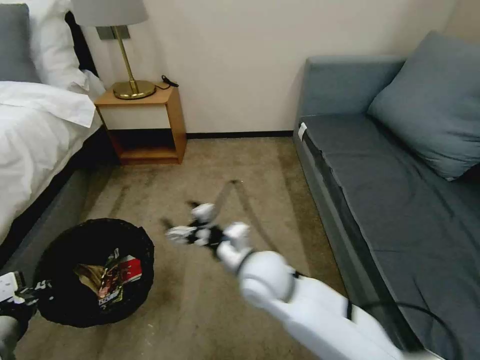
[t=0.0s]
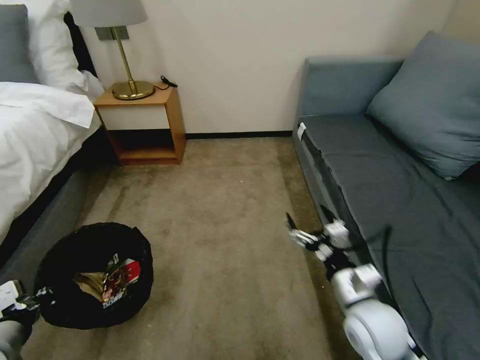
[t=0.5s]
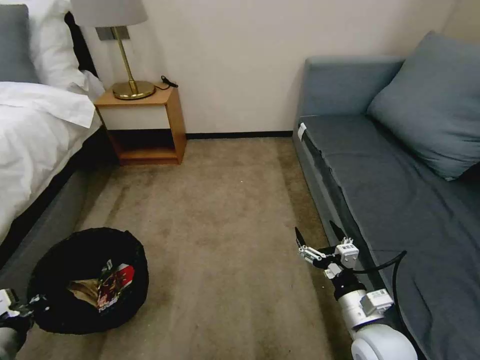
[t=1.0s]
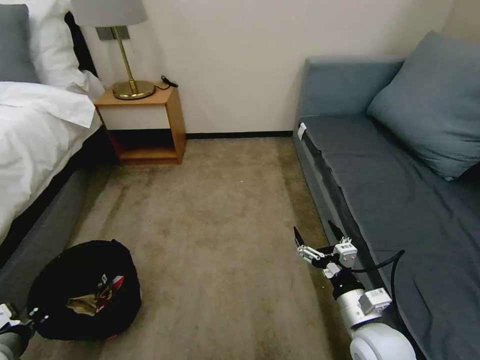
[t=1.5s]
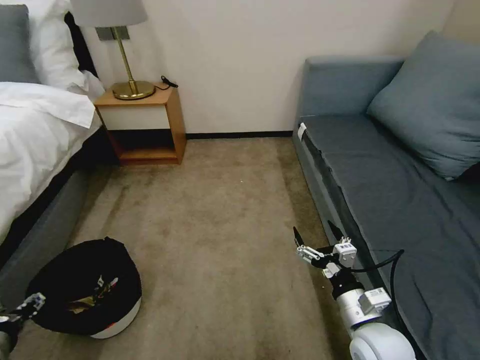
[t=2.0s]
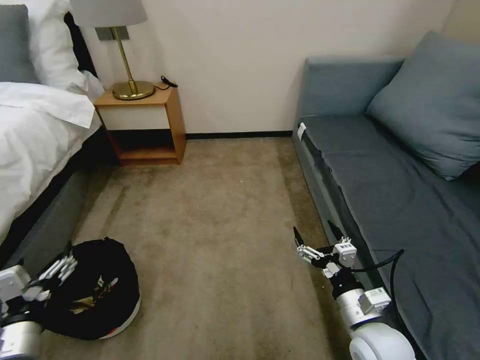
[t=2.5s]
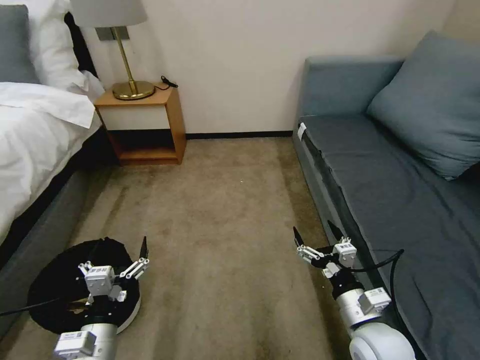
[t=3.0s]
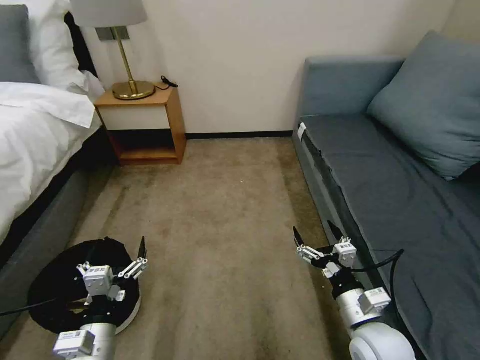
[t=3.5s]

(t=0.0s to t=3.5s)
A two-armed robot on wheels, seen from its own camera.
Task of the whole recording: Pick up the trash bin, then pick up the garbage on the floor and place it into the trash bin.
t=0.0s - t=2.0s: The right gripper heads to the right and backward, covering about 25 cm. Meanwhile the left gripper goes approximately 5 cm downward, and opens its fingers.
t=2.0s - t=3.5s: The left gripper goes about 20 cm to the right, and opens its fingers.

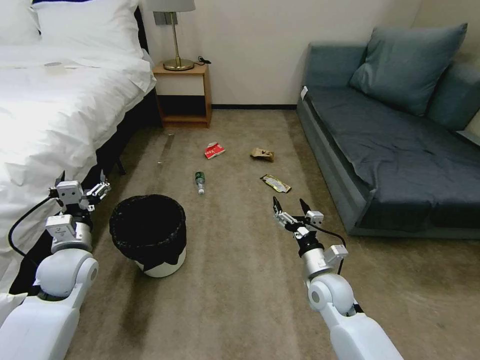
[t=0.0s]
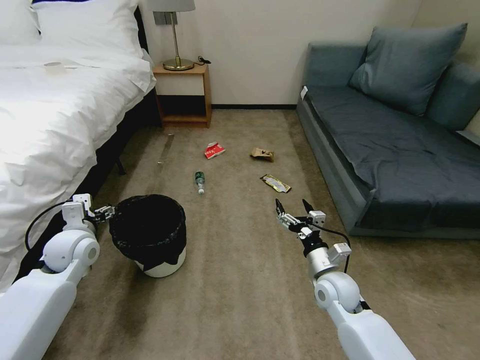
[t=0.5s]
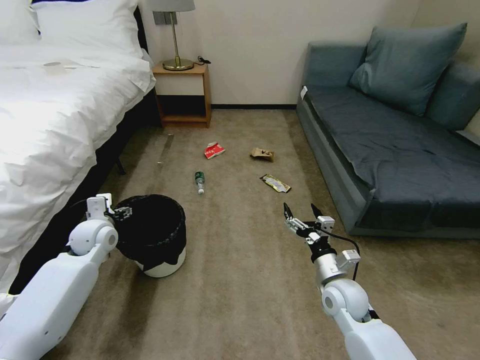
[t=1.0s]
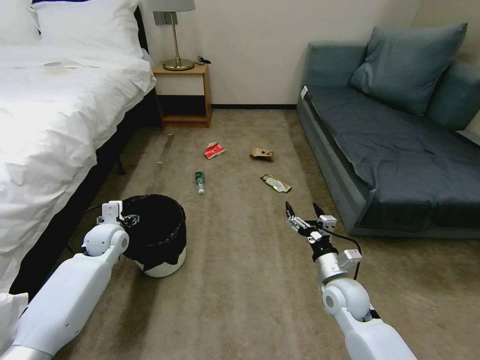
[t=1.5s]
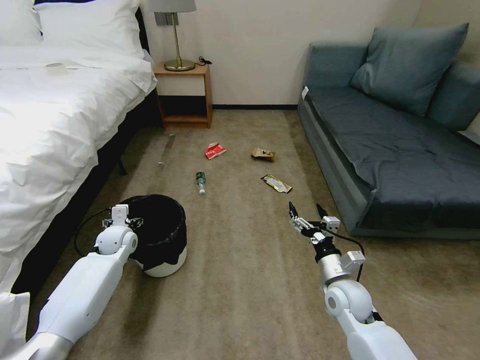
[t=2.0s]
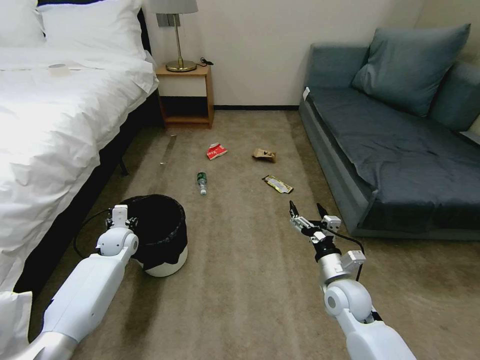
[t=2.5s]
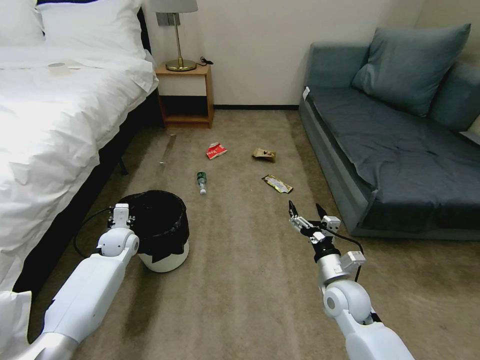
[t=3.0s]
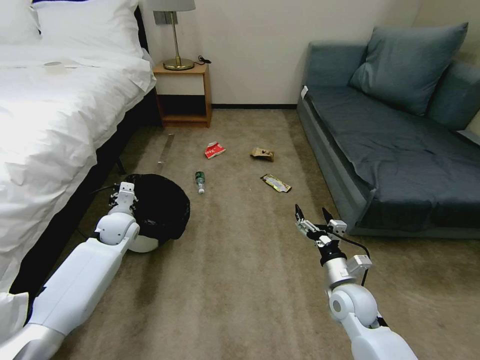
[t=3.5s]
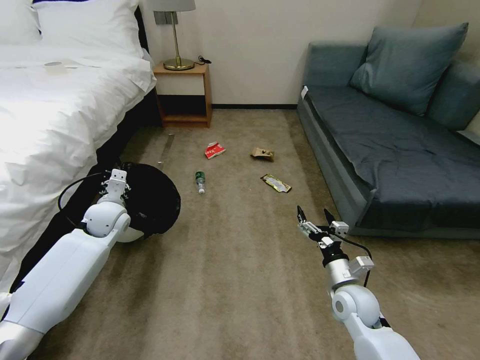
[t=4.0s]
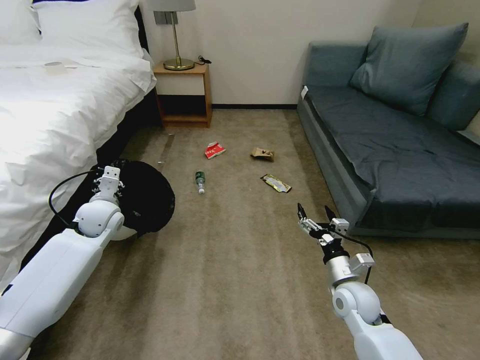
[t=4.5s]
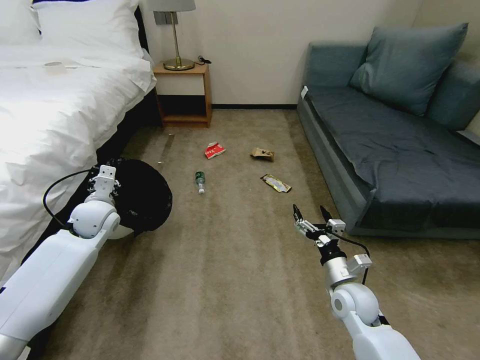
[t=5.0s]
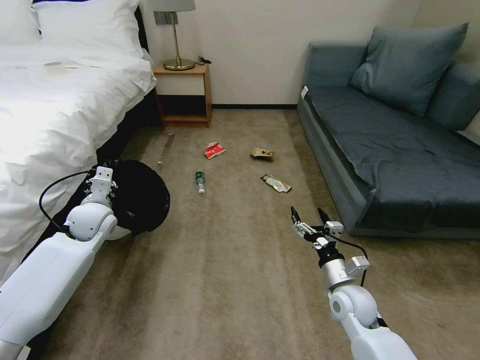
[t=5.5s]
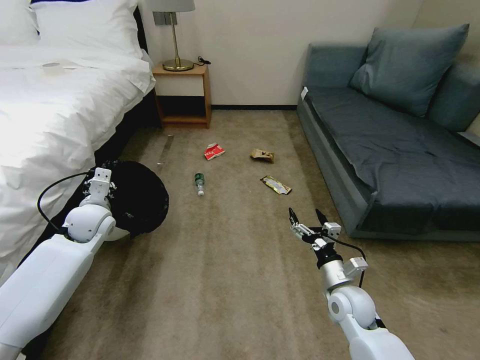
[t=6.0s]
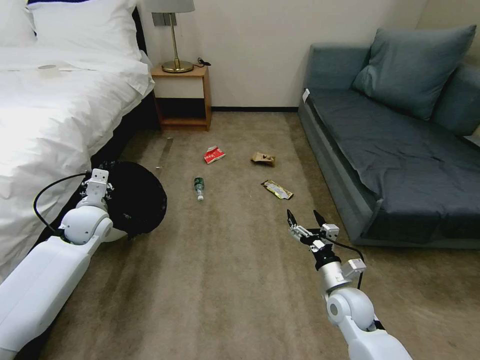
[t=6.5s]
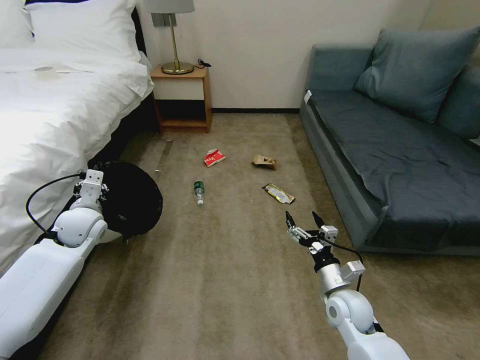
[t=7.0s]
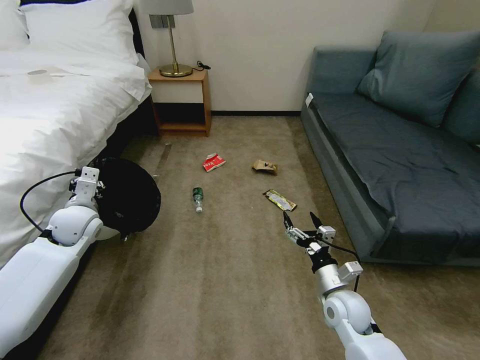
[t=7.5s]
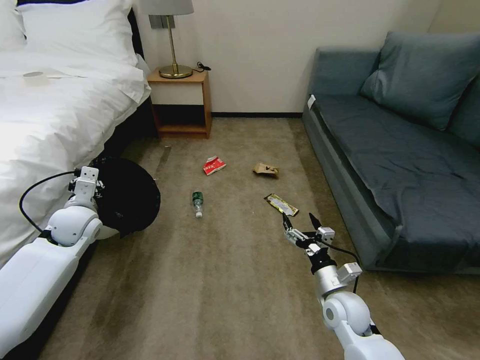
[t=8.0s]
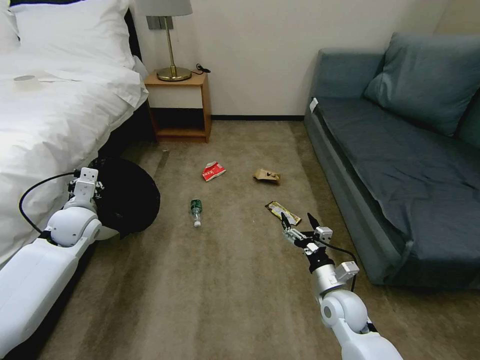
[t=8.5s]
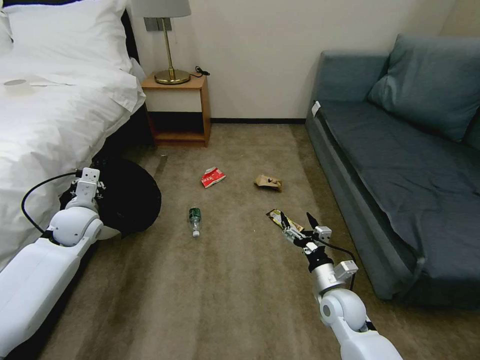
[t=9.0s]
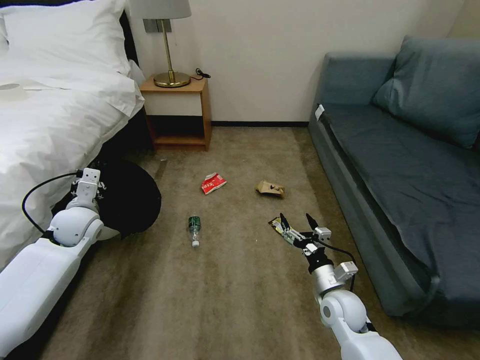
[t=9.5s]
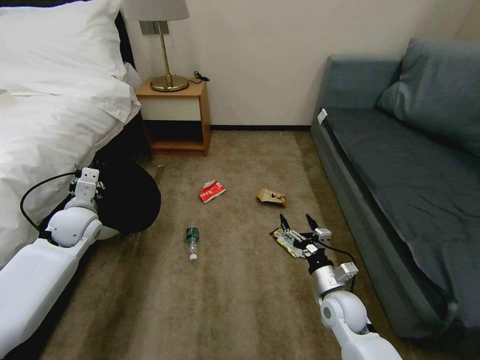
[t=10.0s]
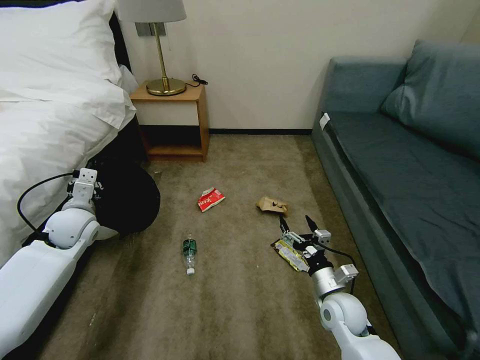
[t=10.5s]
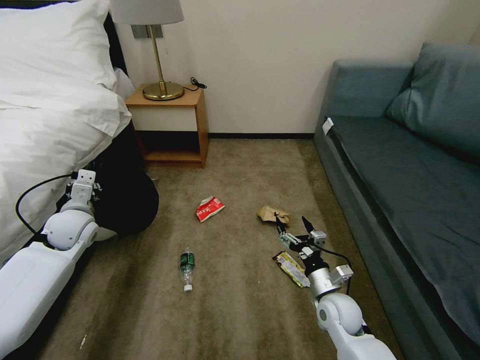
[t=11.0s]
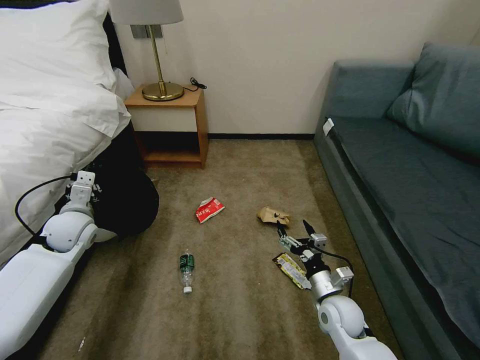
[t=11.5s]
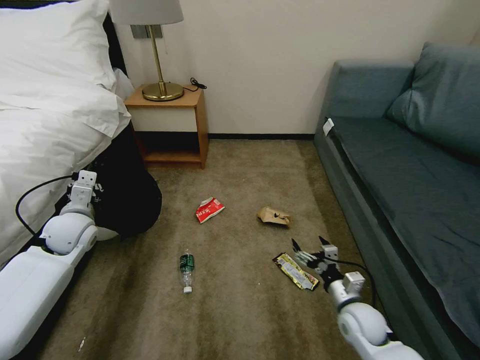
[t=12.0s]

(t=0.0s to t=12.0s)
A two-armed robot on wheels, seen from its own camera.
Task of the whole recording: Pick up the trash bin, then pick up the garbage on the floor and place it into the trash bin.
t=2.0s - t=4.0s: The left gripper shifts roughly 10 cm upward, and closes its fingers.
t=4.0s - t=6.0s: The grippers make only small movements.
t=10.0s - t=12.0s: The grippers stay close to where they were, moving slightly.

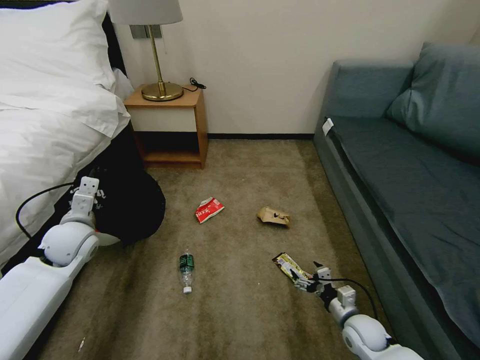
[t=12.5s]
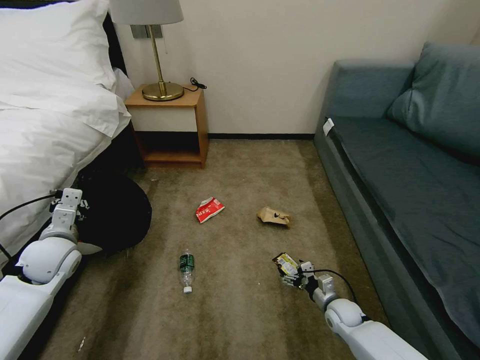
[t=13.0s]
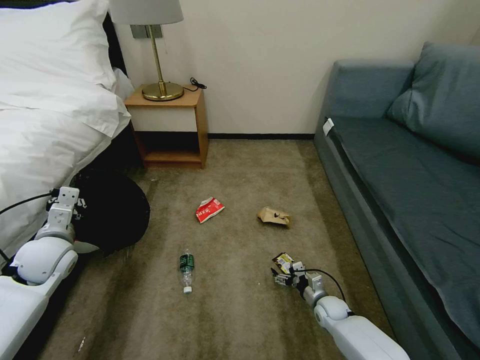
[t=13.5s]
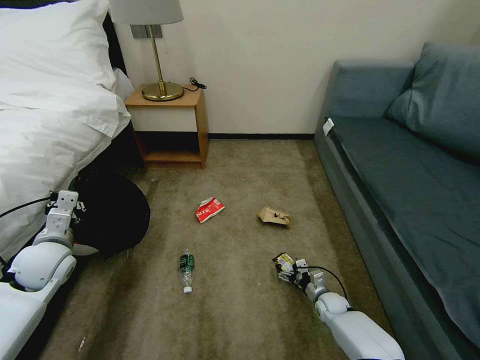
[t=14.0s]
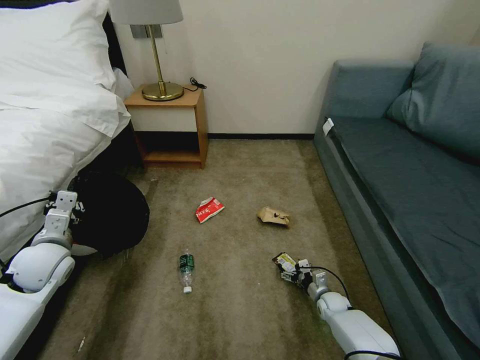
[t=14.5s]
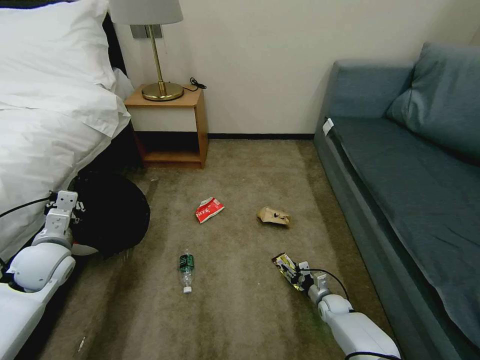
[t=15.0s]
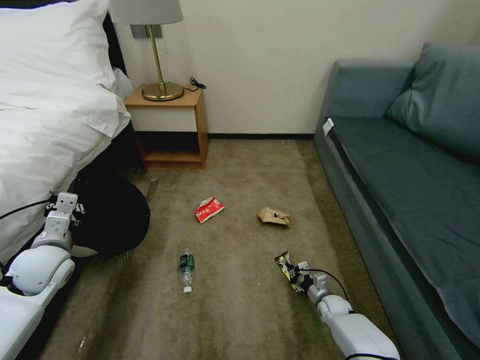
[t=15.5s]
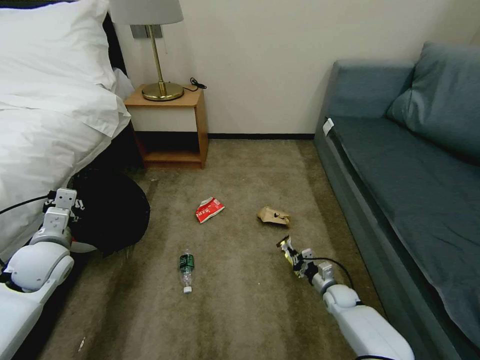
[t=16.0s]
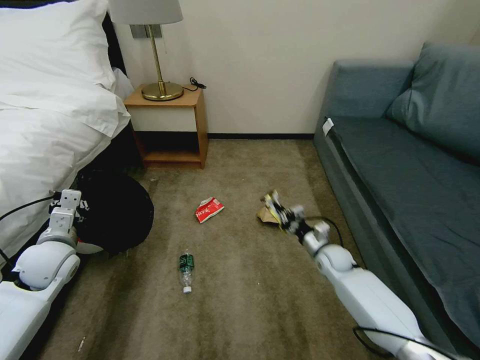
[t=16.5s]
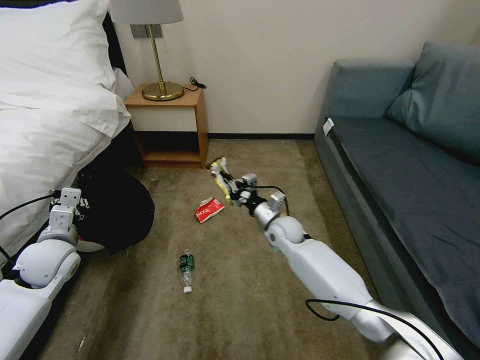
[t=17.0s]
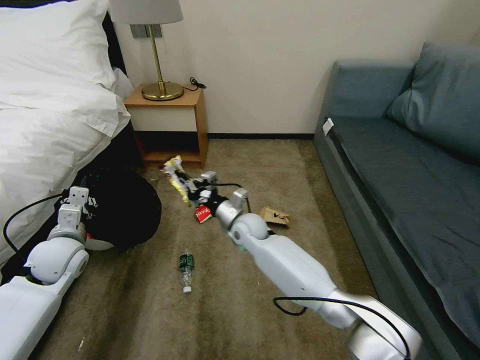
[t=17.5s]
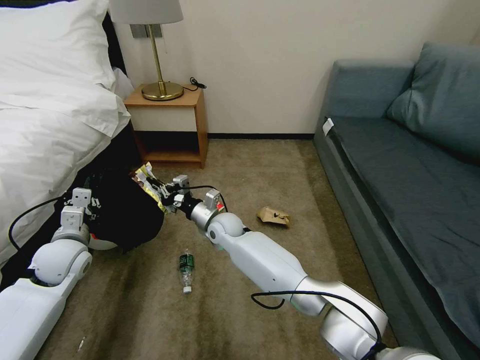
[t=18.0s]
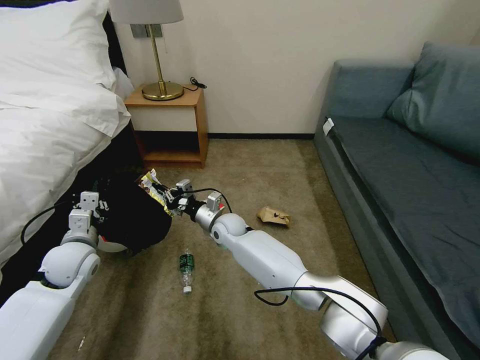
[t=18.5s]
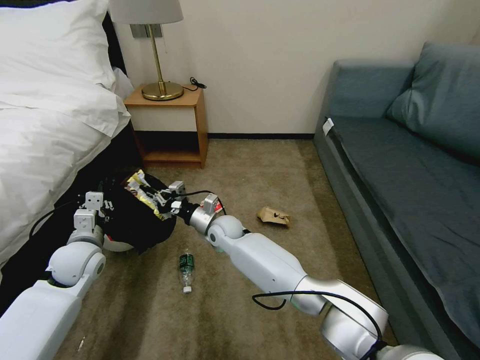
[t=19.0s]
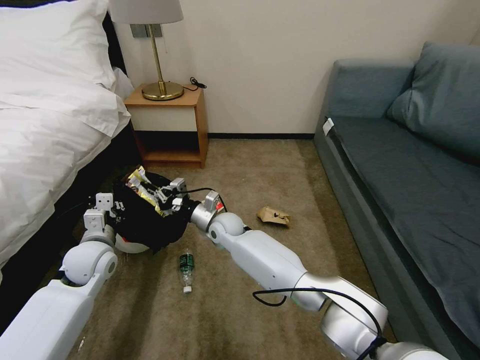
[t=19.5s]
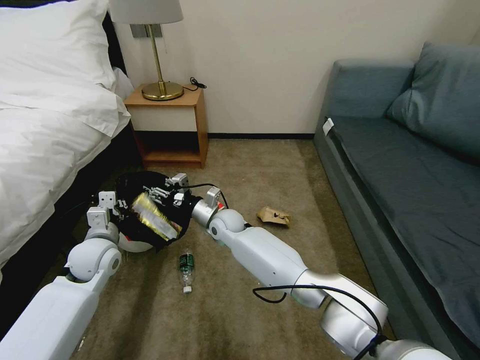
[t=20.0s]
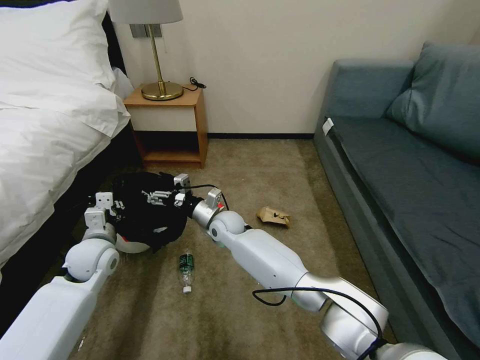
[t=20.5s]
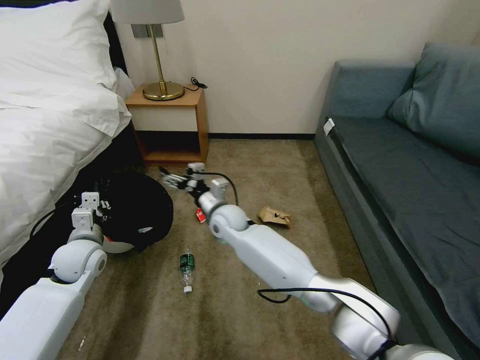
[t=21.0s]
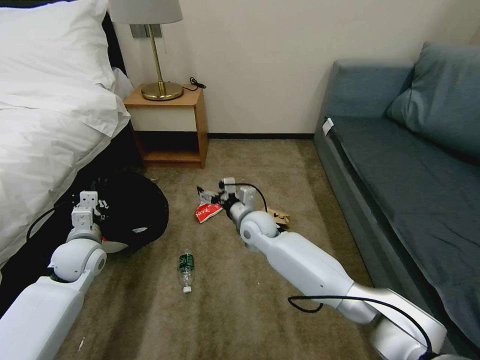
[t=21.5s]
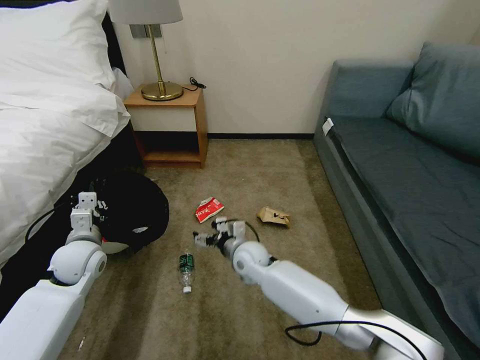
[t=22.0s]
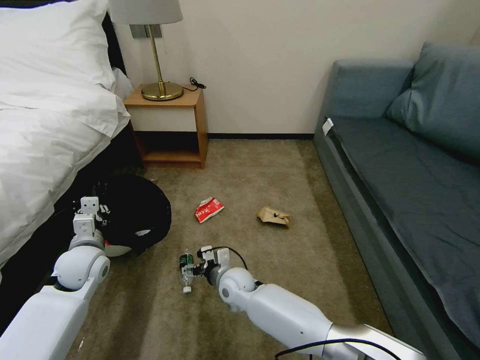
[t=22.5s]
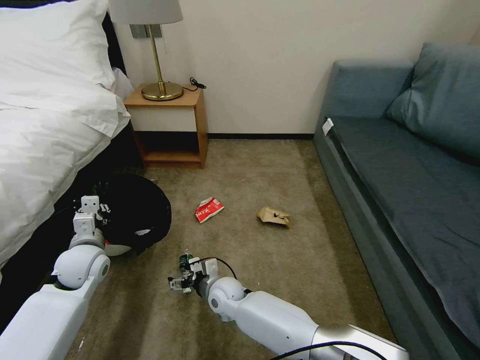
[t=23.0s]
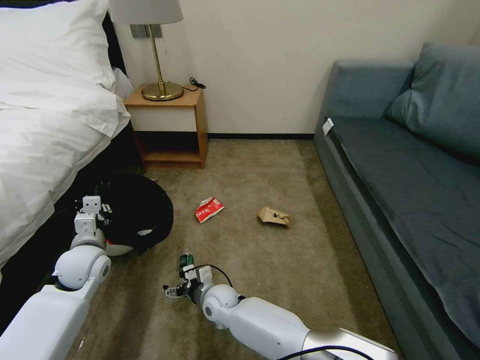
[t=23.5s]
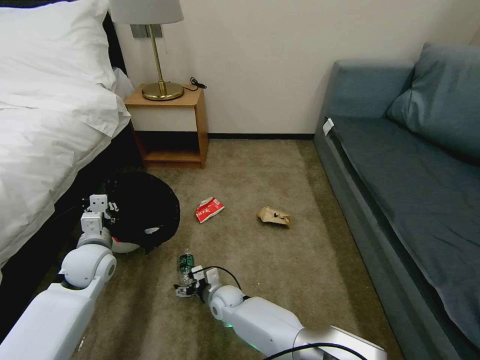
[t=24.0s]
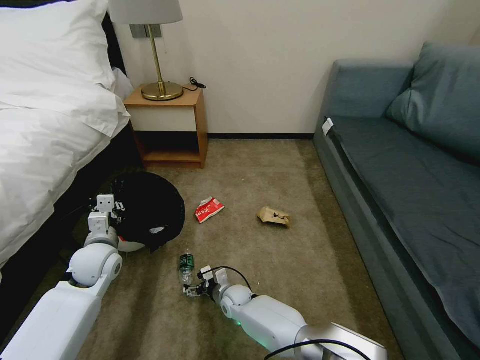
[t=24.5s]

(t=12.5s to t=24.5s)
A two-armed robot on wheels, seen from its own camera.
Task of the whole recording: Pick up the trash bin, then pick up the garbage on the floor and place it into the trash bin.
t=12.5s - t=14.5s: The right gripper heads downward and forward, covering approximately 15 cm; the left gripper is displaced backward by approximately 5 cm.
t=14.5s - t=16.5s: The right gripper moves upward and forward, about 20 cm, and closes up.
t=16.5s - t=18.5s: The right gripper is displaced to the left by some 30 cm.
t=18.5s - t=20.5s: The right gripper opens up.
t=20.5s - t=22.5s: The right gripper goes roughly 15 cm backward and downward.
t=22.5s - t=24.5s: The right gripper heads downward, covering roughly 10 cm.
